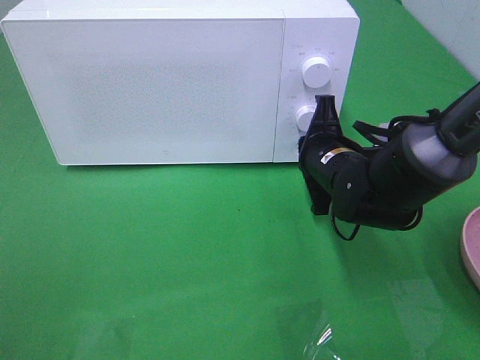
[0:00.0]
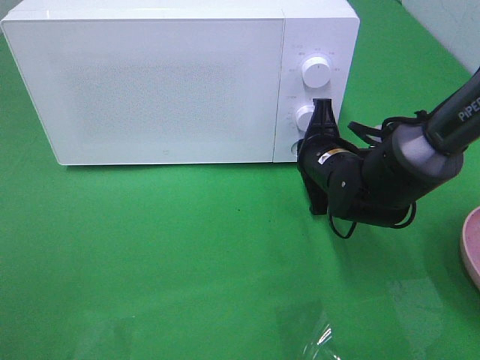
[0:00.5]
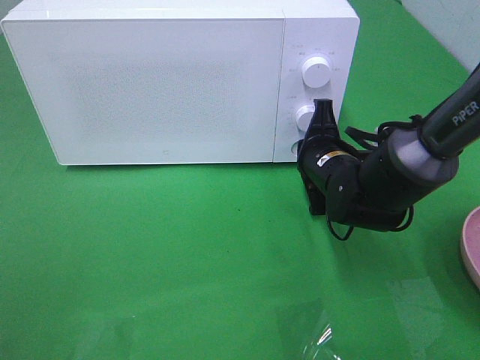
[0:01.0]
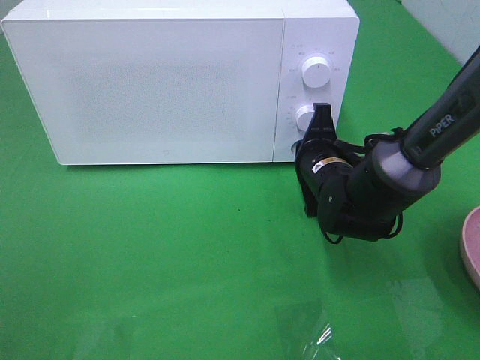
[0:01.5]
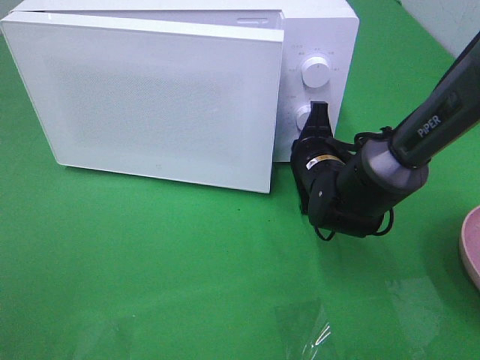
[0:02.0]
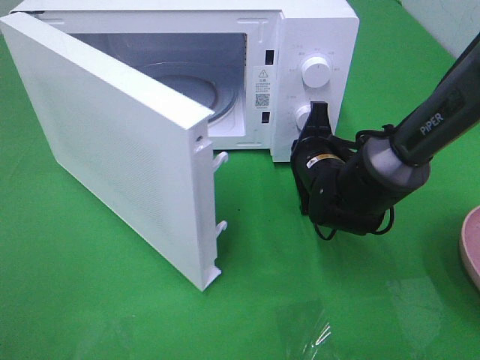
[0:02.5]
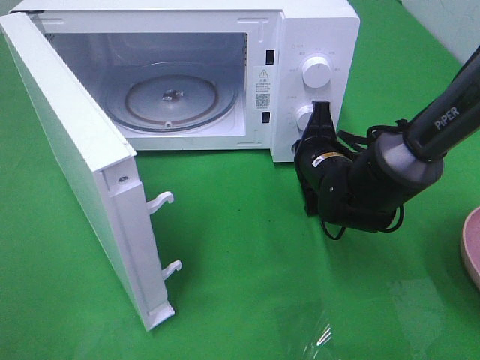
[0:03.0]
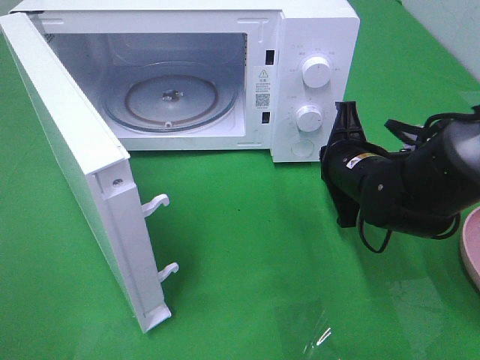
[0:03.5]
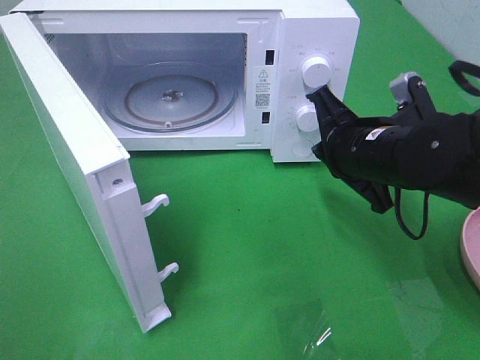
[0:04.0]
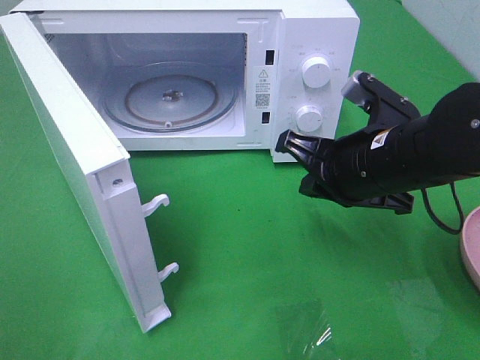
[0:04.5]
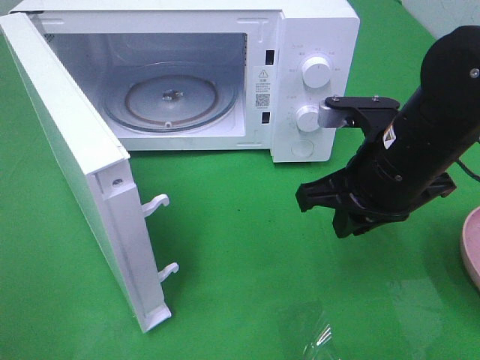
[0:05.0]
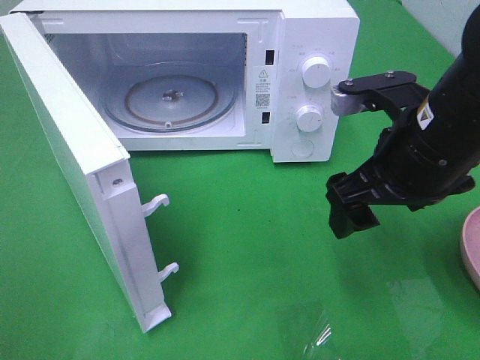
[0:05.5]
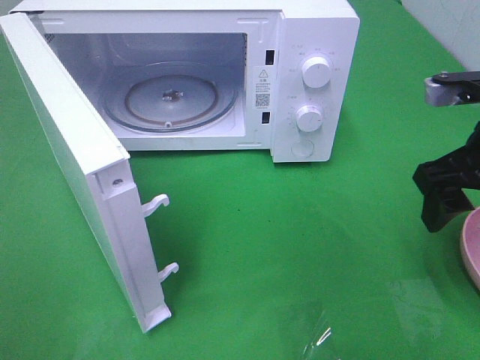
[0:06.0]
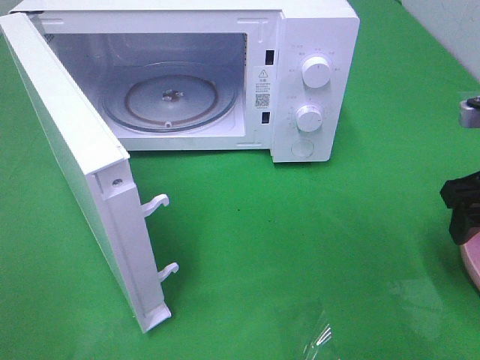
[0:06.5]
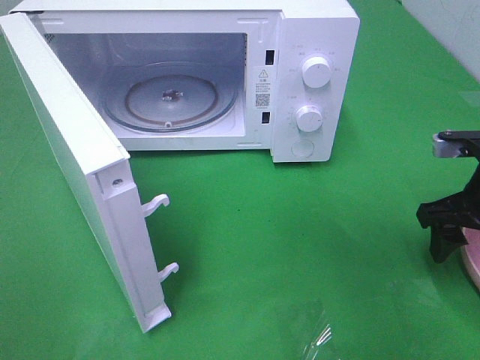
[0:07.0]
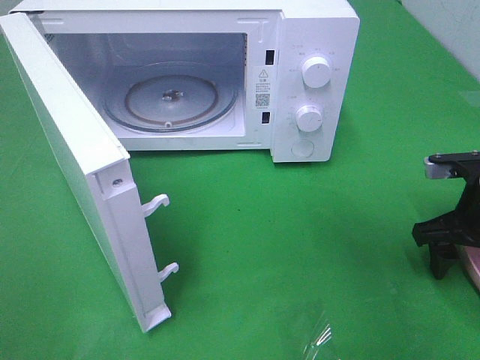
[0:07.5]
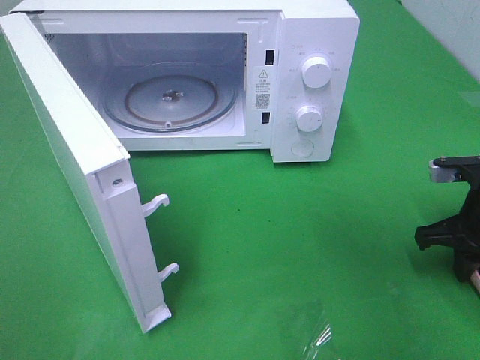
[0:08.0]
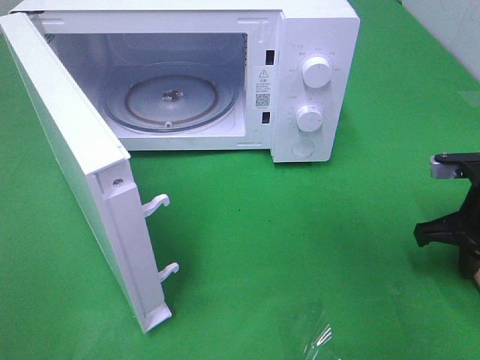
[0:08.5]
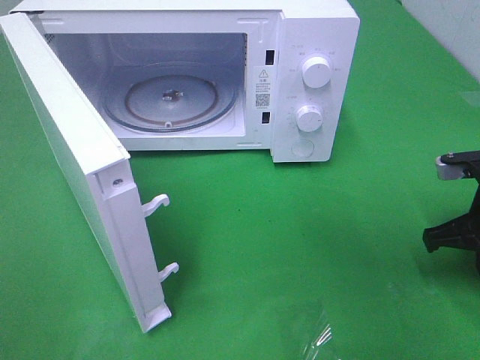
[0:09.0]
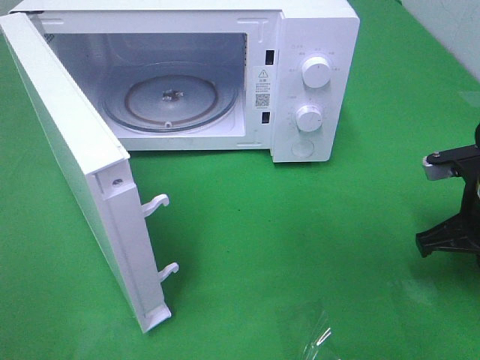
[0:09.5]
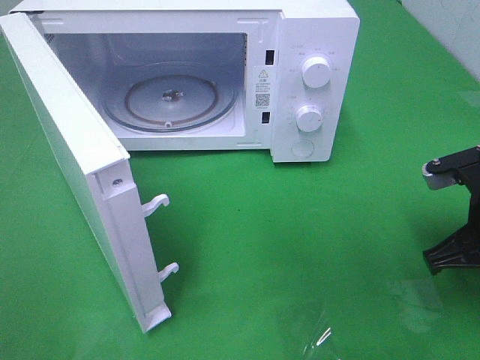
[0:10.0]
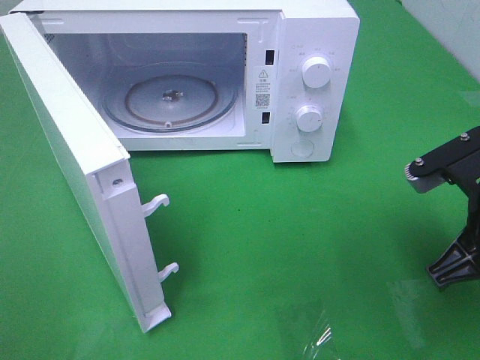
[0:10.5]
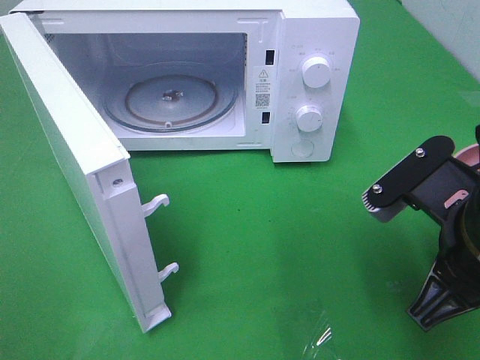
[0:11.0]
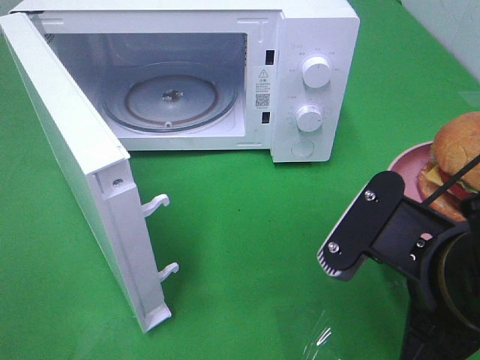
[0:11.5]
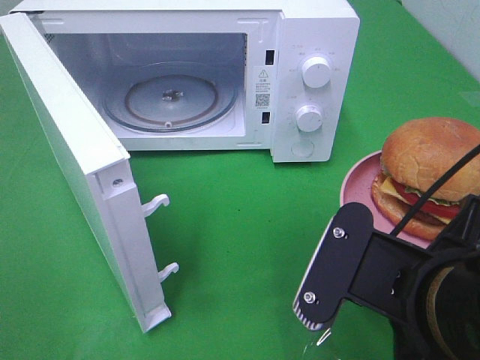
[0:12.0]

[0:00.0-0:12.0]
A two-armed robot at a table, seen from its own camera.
Task of the whole recording: Heat the burger.
Step, 0:00.0 to 0:03.5: Right hand: press the switch.
Step, 0:04.0 to 0:09.0: Right hand: grab the plate with the hamburger.
0:00.0 to 0:02.0: The grippers move only a little.
0:02.0 to 0:04.0: The right gripper moves upward and backward, some 10 cm.
0:04.0 to 0:06.0: The right gripper is displaced to the right and upward by some 10 cm, and opens up.
0:06.0 to 0:08.0: The right gripper travels downward by roughly 10 cm, and closes.
0:08.0 to 0:10.0: The right gripper ends up some 10 cm from where it was.
0:10.0 to 0:12.0: The right gripper travels backward and to the left by approximately 20 cm.

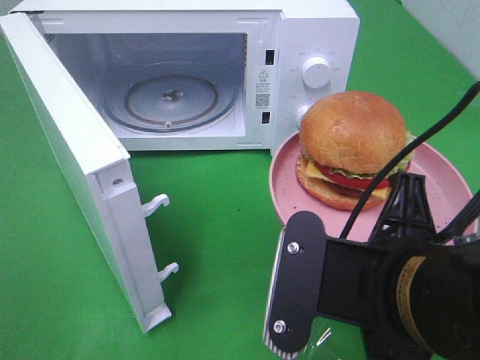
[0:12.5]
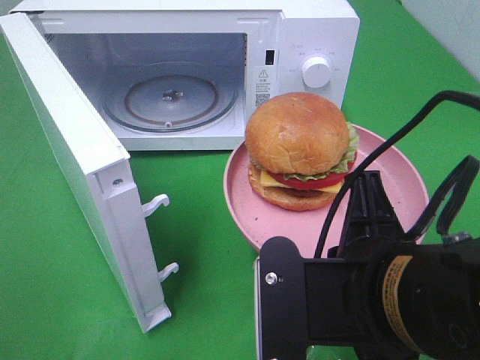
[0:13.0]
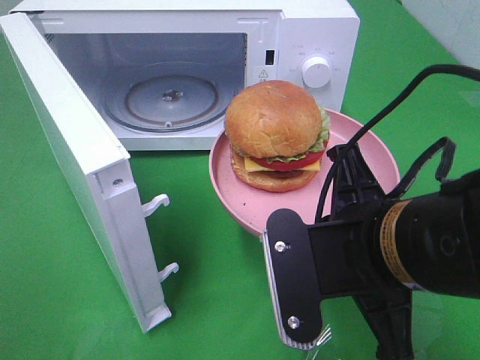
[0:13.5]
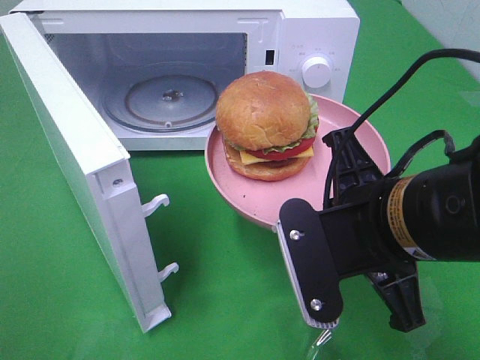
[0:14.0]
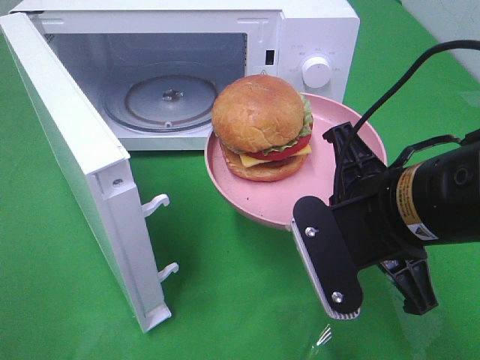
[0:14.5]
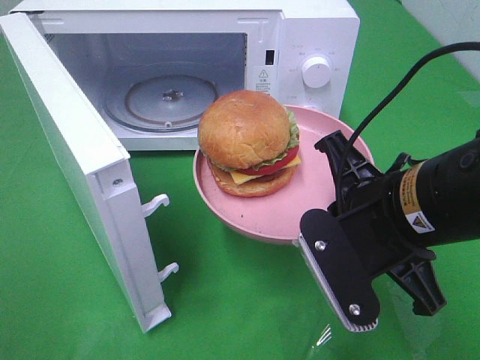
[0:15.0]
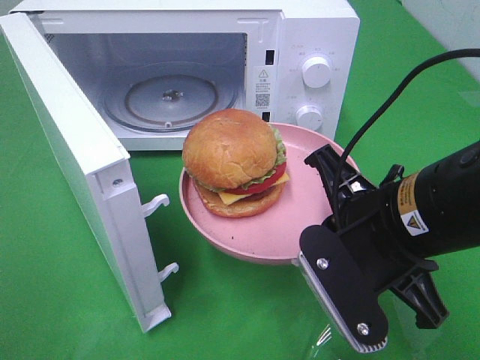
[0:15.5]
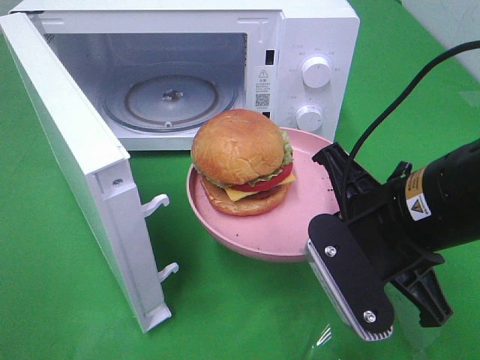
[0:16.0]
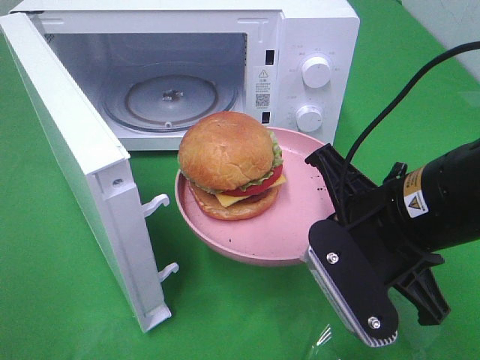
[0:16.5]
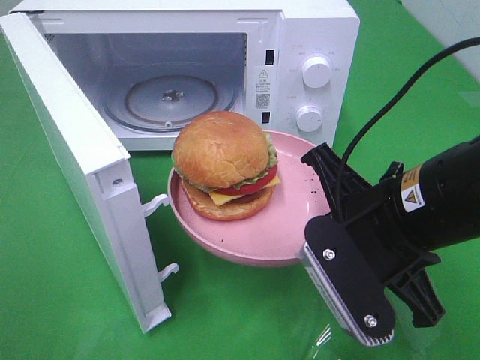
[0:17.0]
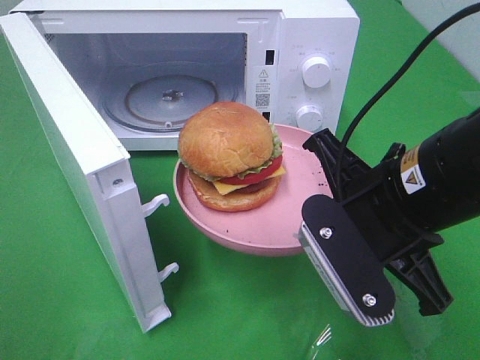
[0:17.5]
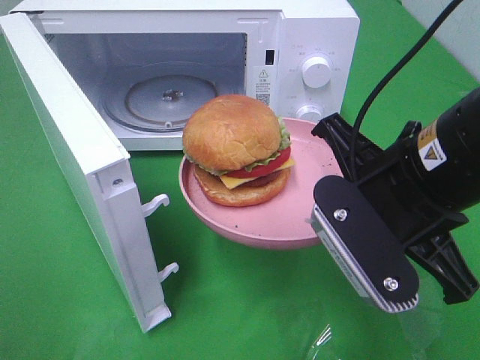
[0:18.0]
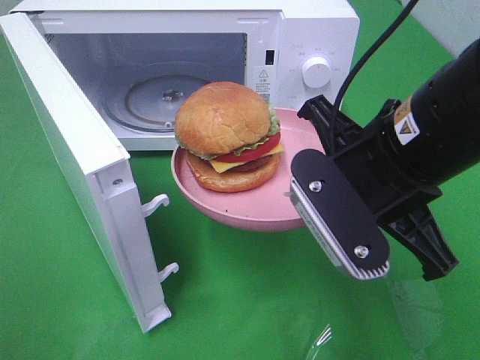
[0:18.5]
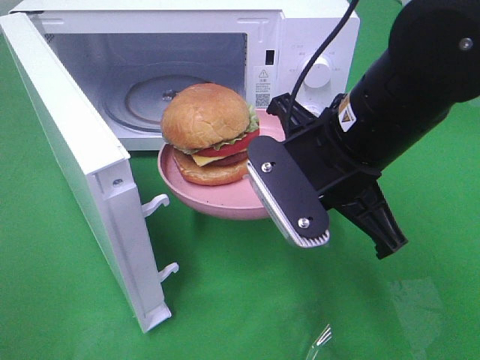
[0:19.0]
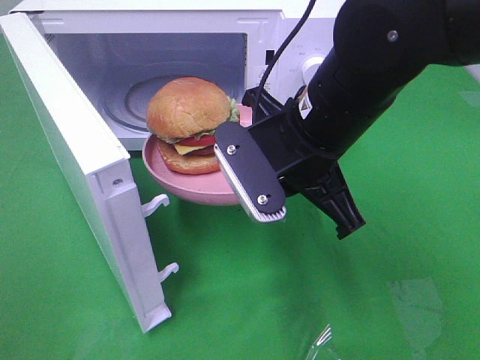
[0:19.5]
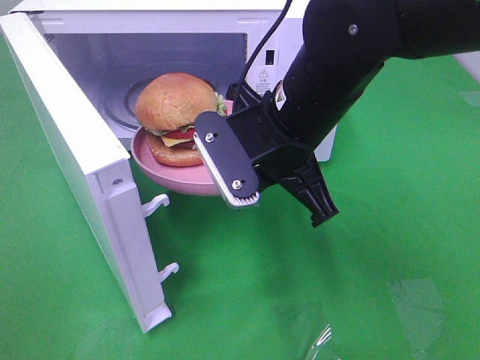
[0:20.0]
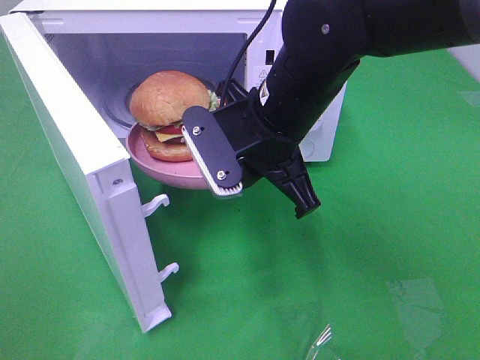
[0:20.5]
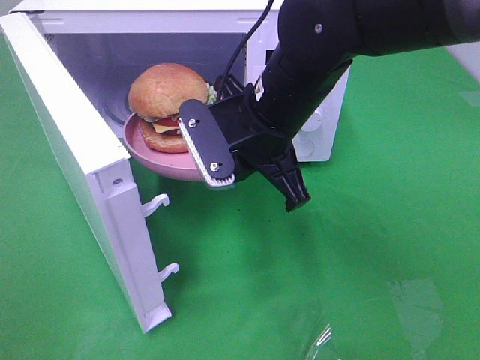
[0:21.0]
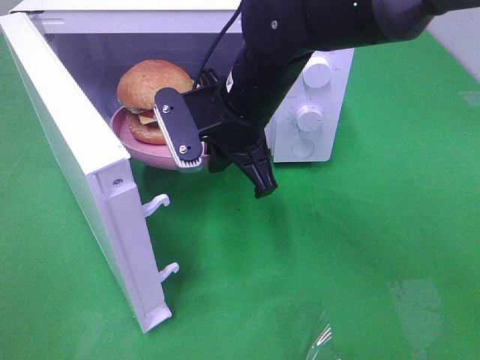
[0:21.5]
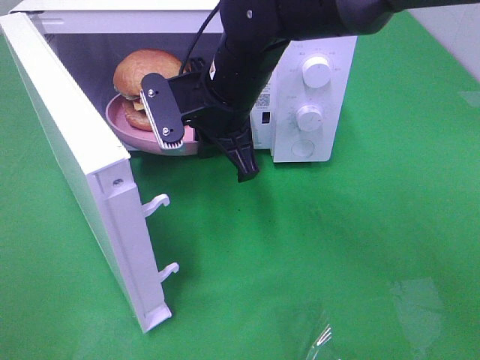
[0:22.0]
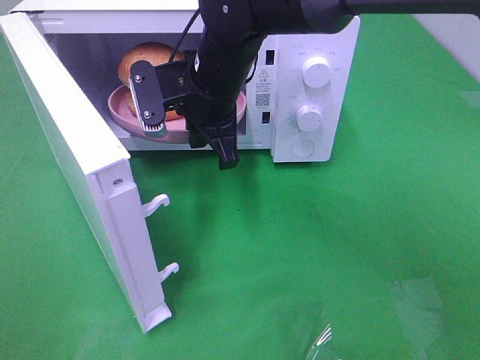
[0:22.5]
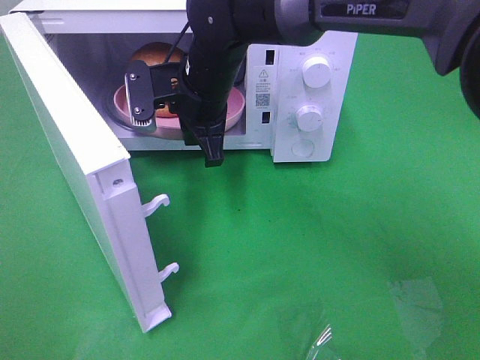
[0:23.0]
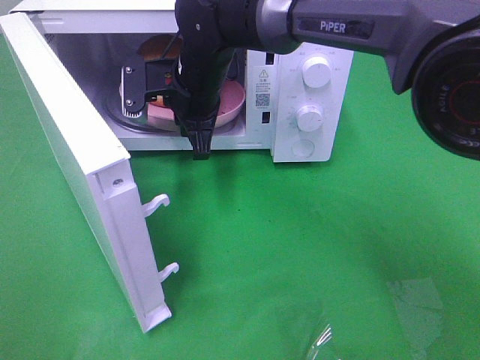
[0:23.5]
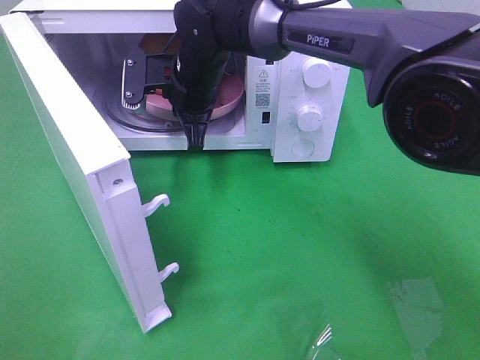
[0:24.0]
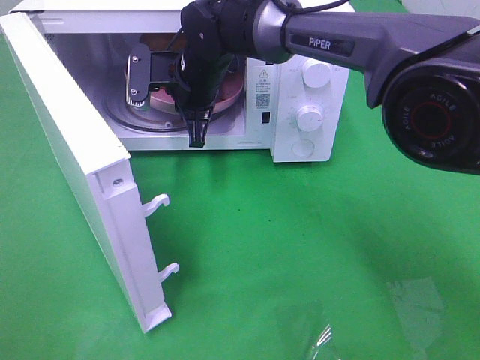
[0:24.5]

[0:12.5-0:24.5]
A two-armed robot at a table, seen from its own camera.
Task of the whole recording: Heat the burger.
0:12.5 to 0:14.5: The right gripper is displaced forward by some 5 cm.
0:14.5 to 0:16.5: The grippers move only a little.
0:16.5 to 0:18.5: The right gripper shifts by some 5 cm.
0:18.5 to 0:20.5: The right gripper travels forward and to the left by about 10 cm.
0:20.5 to 0:22.5: The right gripper moves forward and to the left, approximately 10 cm.
0:22.5 to 0:24.5: The right gripper goes some 5 cm forward.

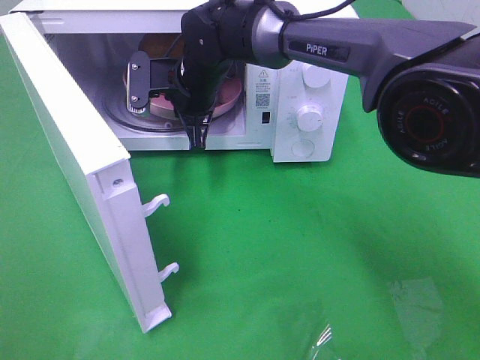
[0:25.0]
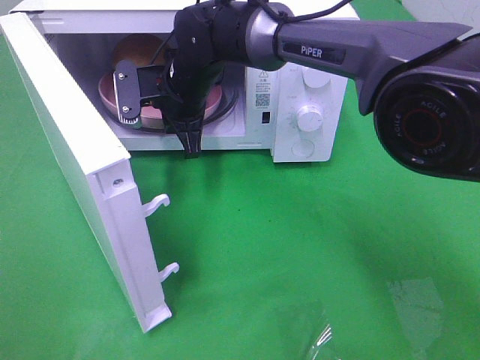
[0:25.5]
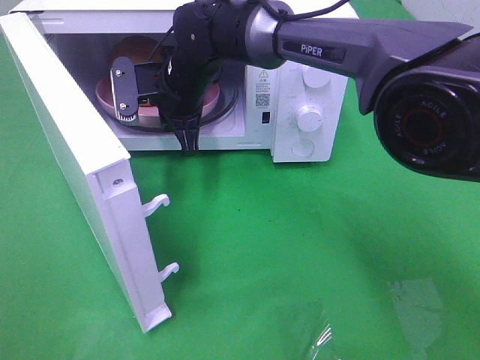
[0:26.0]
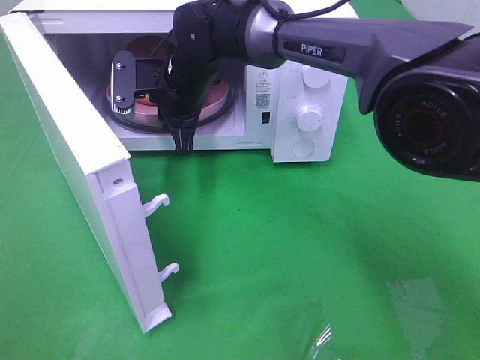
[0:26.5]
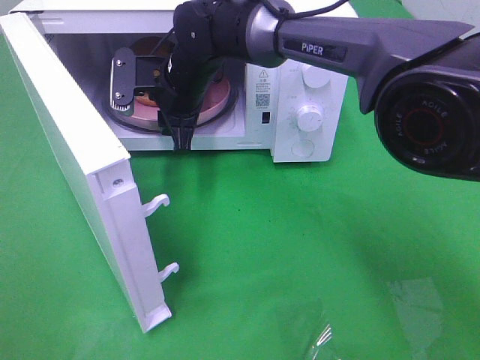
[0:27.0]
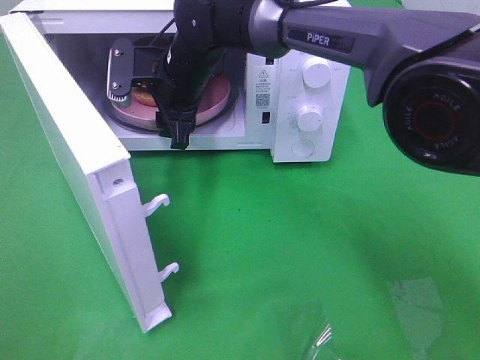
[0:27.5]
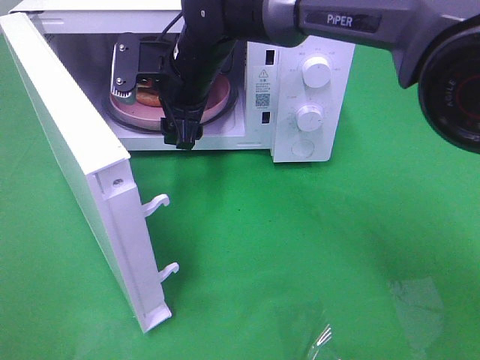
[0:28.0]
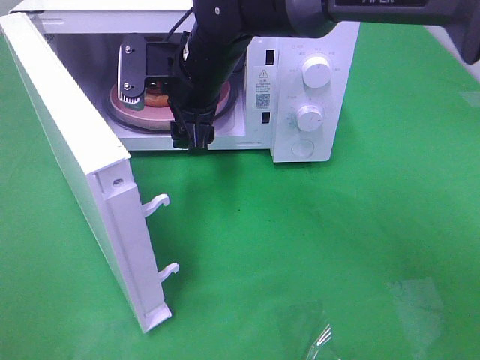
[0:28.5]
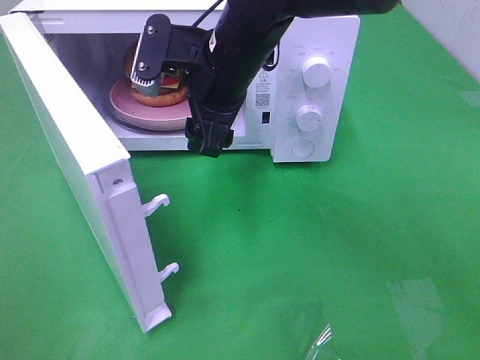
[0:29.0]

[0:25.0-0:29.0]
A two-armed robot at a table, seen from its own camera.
Task of the whole recording: Heat the burger.
Step, 0:25.0 to 0:27.0: Right hand: place the plate in the microwave.
0:25.0 to 0:27.0: The right gripper opens.
0:27.0 to 0:29.0: The right gripper goes some 10 cm backward, upward and to the right, and opens its fingers.
